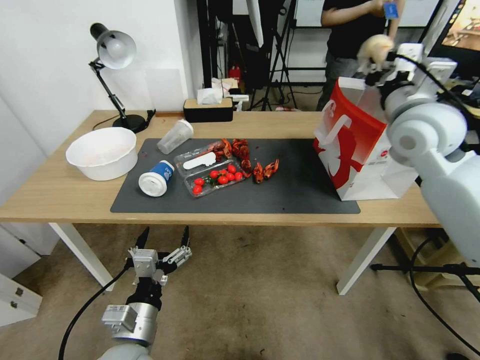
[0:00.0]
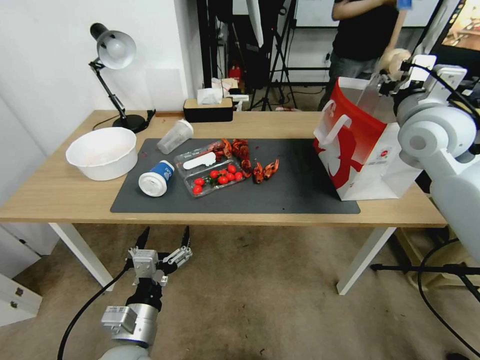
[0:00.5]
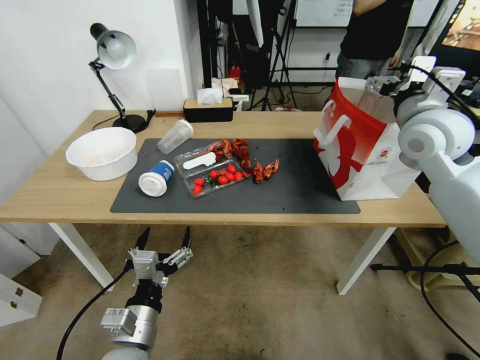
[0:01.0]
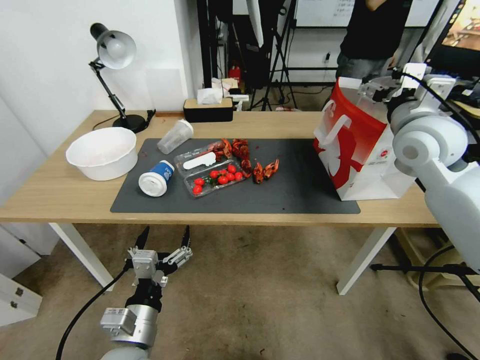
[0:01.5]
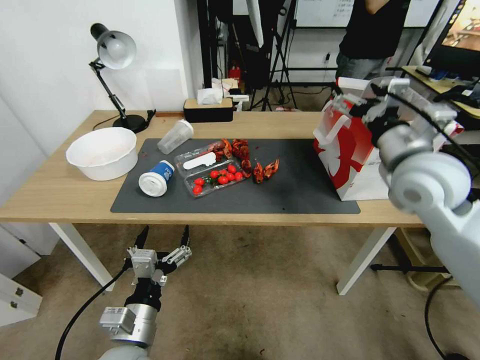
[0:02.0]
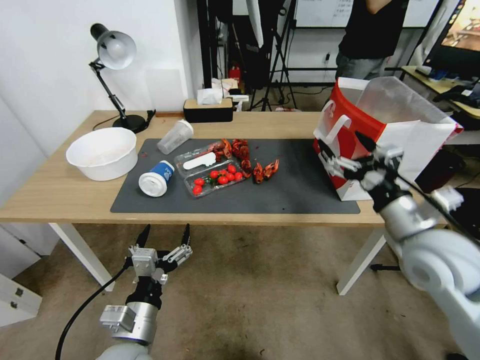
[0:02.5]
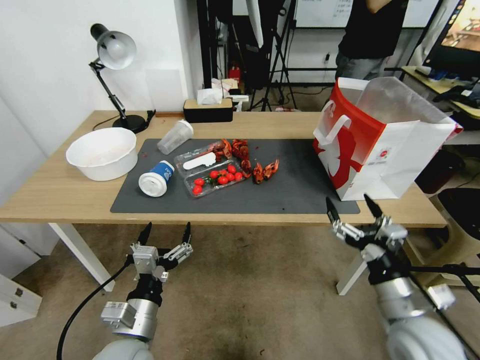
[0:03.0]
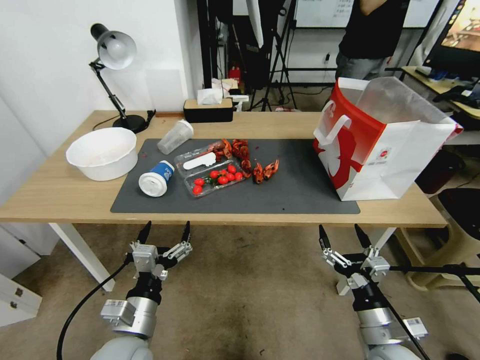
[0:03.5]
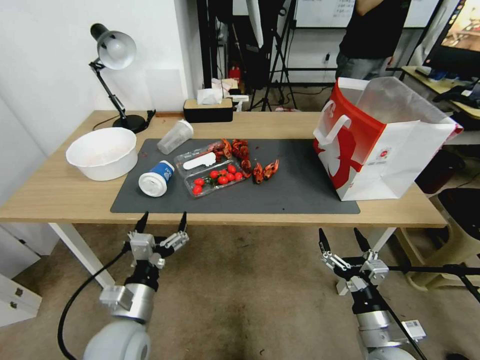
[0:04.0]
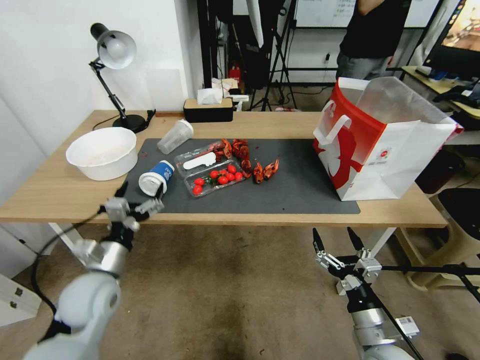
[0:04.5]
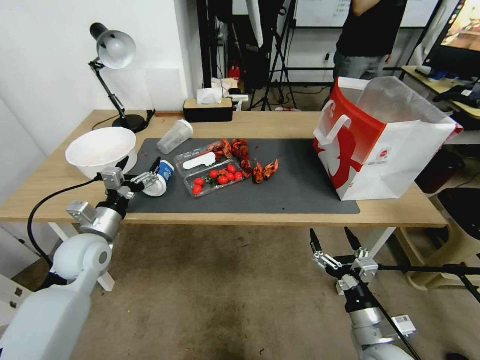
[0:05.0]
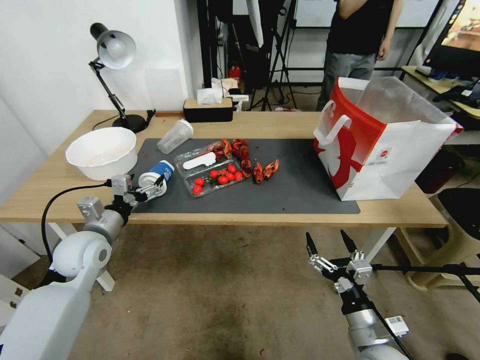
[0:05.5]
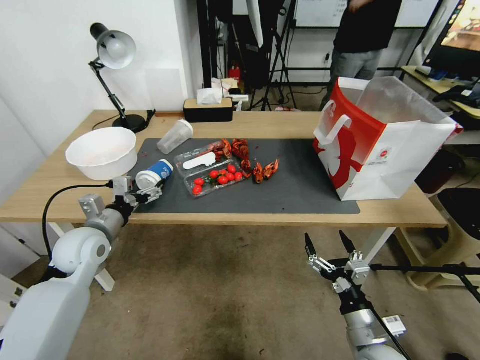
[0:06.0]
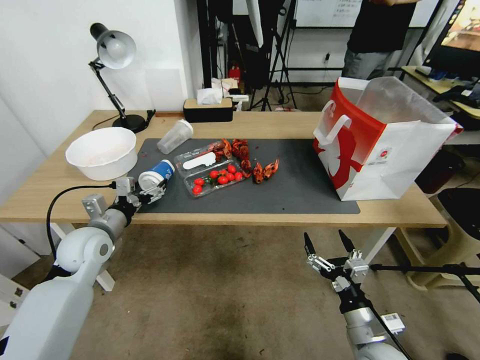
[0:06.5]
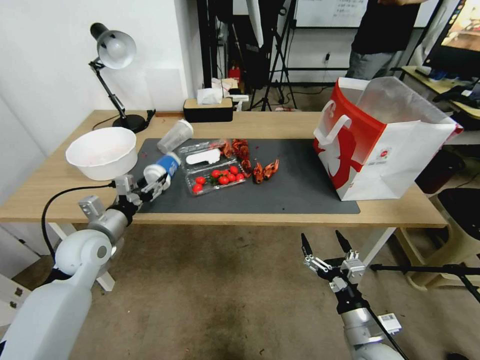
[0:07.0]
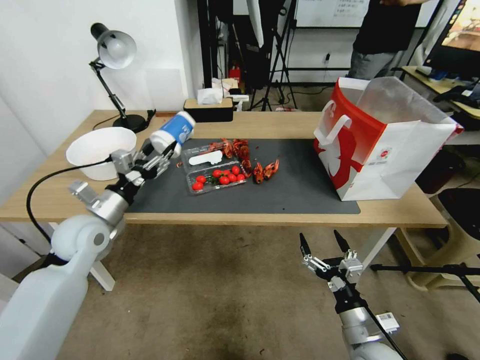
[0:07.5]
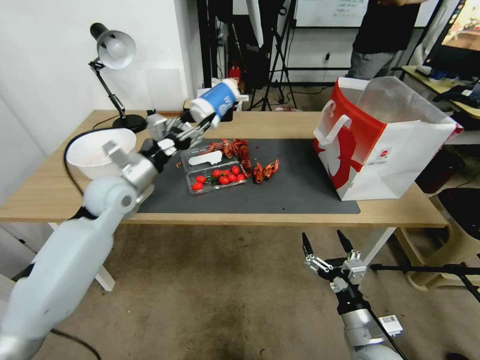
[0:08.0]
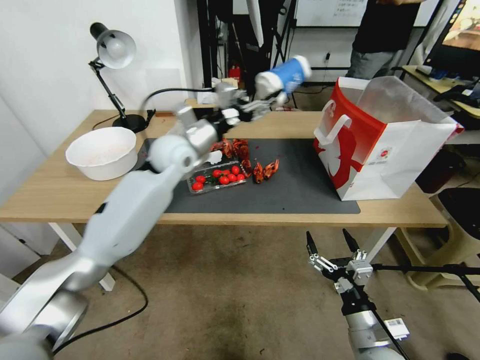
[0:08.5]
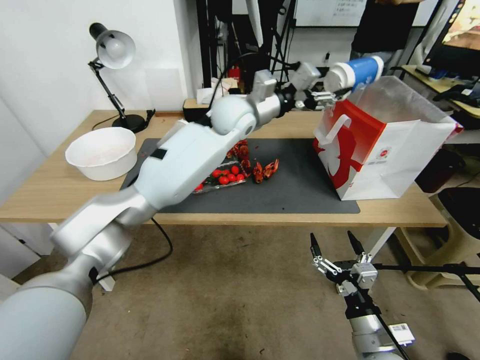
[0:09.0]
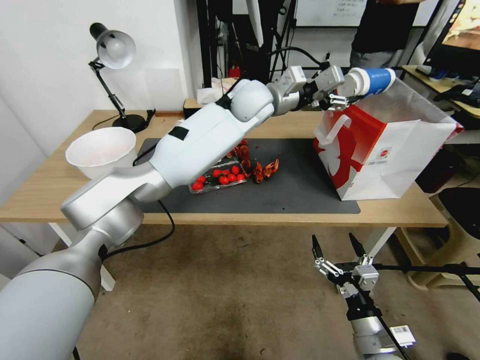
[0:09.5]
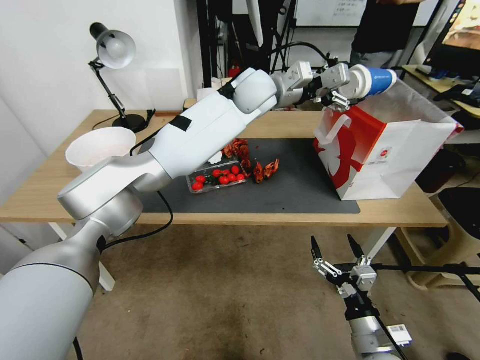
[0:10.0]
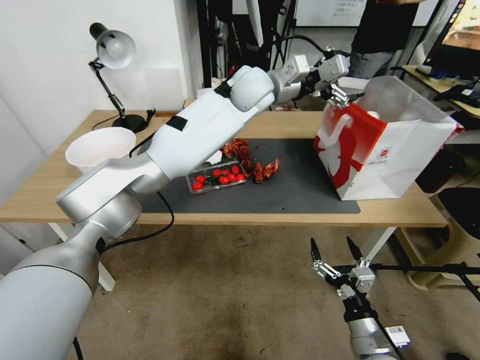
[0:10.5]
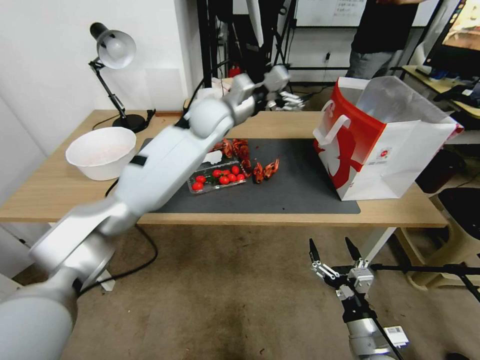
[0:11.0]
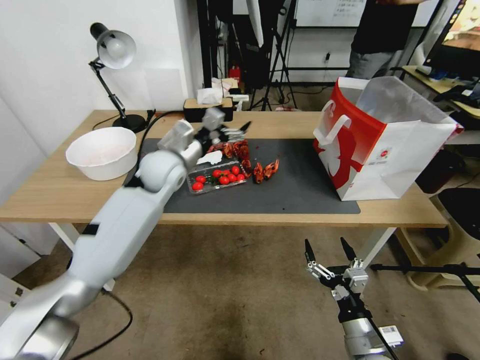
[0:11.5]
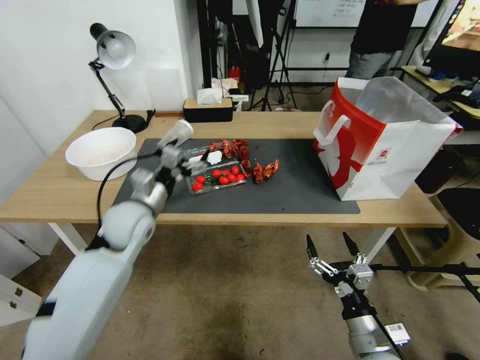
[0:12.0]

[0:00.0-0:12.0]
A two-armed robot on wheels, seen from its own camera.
0.0 to 2.0 s: The right gripper is displaced backward by approximately 5 cm, and opens.
2.0 to 4.0 s: The right gripper moves downward and backward, some 35 cm.
4.0 to 6.0 s: The left gripper is displaced forward and to the left by approximately 20 cm.
6.0 to 8.0 s: The left gripper goes approximately 15 cm upward, forward and to the right, and closes its fingers.
8.0 to 10.0 s: The left gripper goes some 35 cm to the right, forward and upward, and opens.
10.0 to 12.0 s: The left gripper shifts some 40 cm to the left, downward and backward.

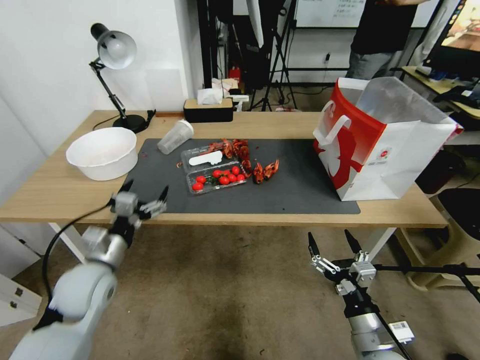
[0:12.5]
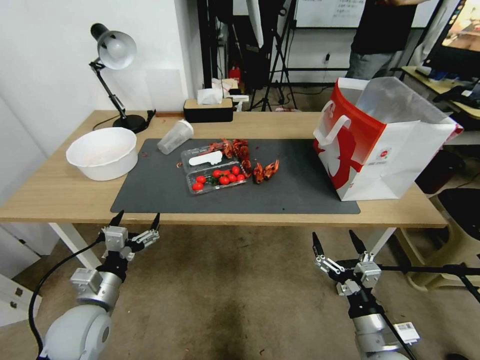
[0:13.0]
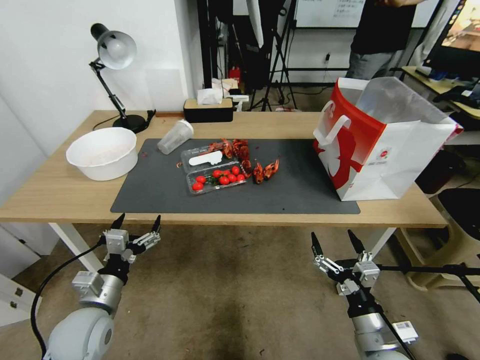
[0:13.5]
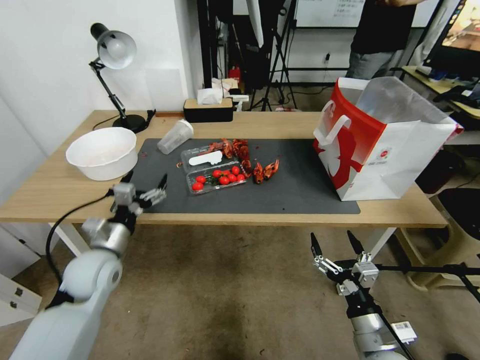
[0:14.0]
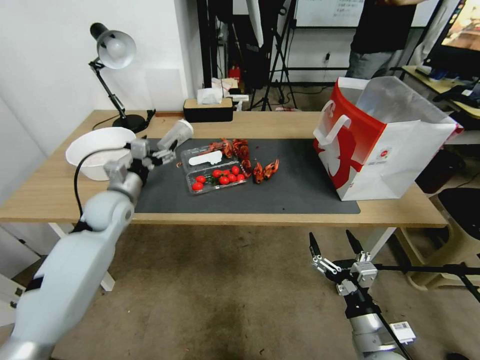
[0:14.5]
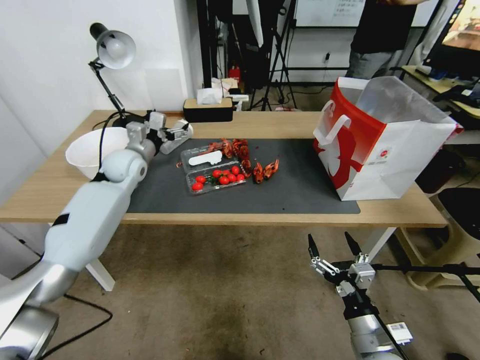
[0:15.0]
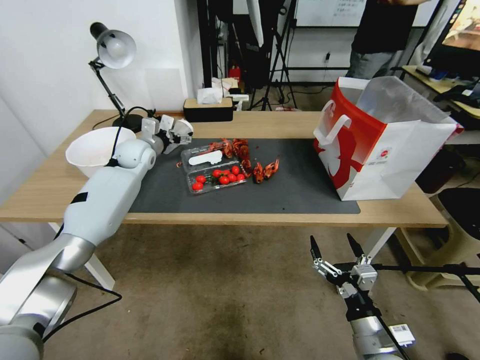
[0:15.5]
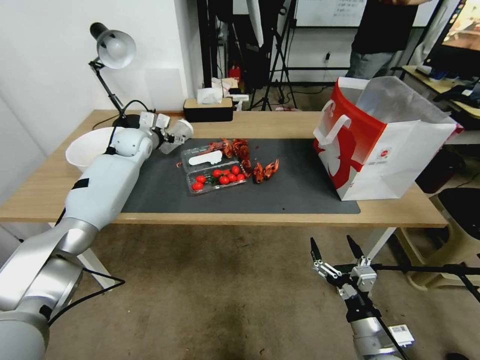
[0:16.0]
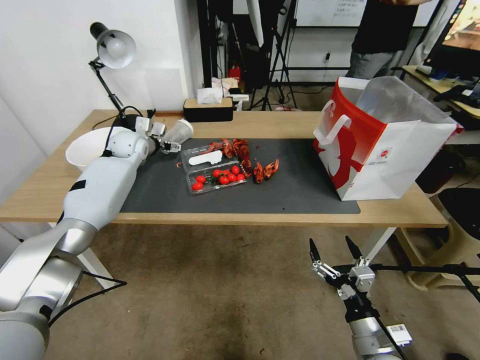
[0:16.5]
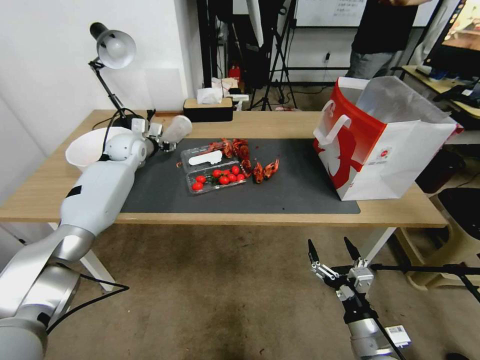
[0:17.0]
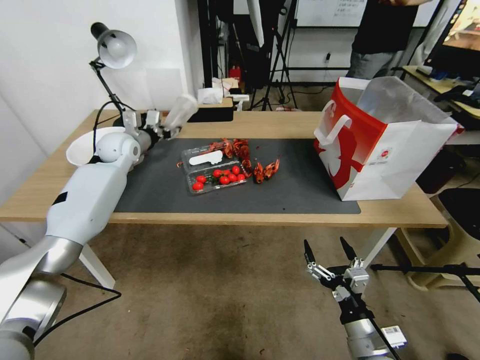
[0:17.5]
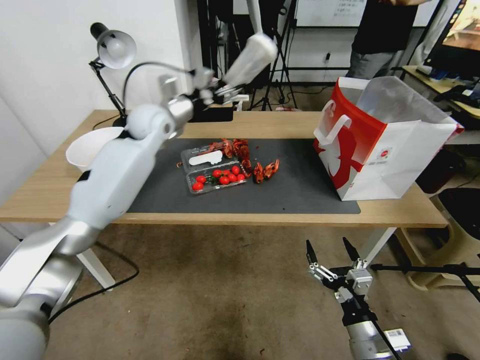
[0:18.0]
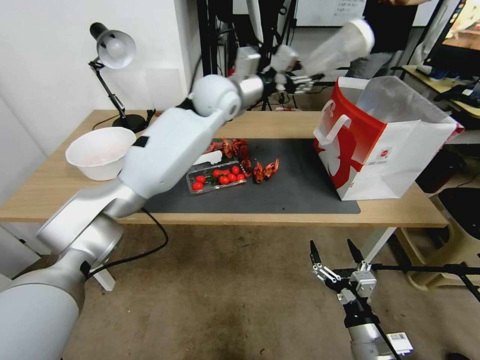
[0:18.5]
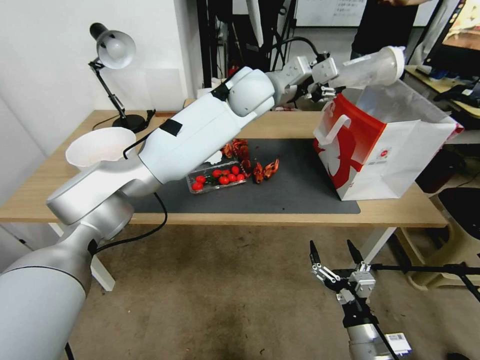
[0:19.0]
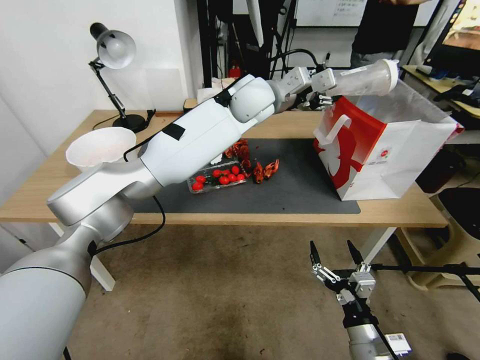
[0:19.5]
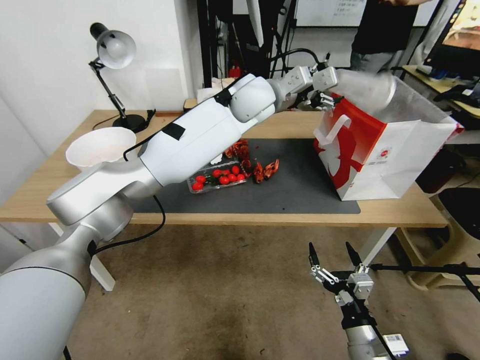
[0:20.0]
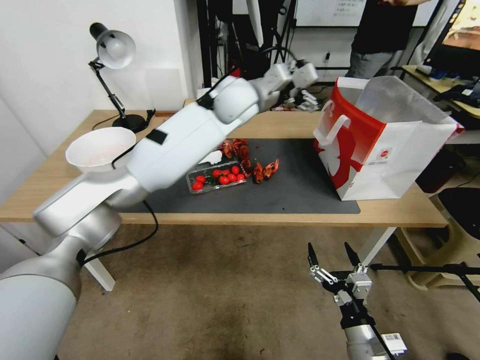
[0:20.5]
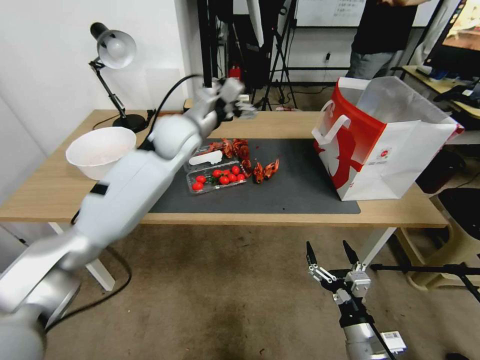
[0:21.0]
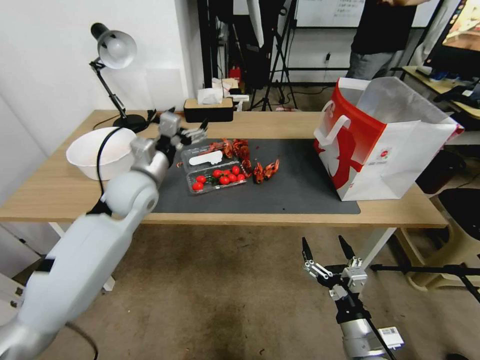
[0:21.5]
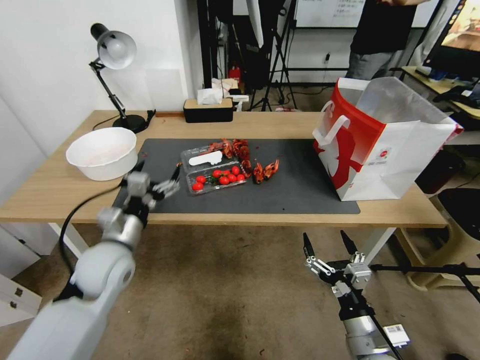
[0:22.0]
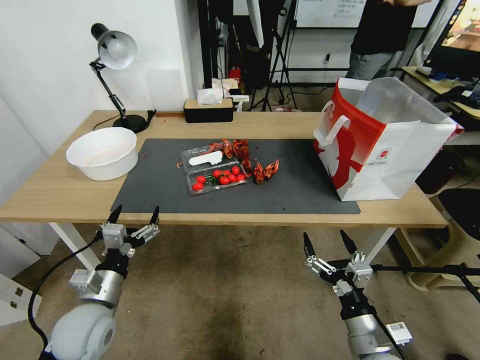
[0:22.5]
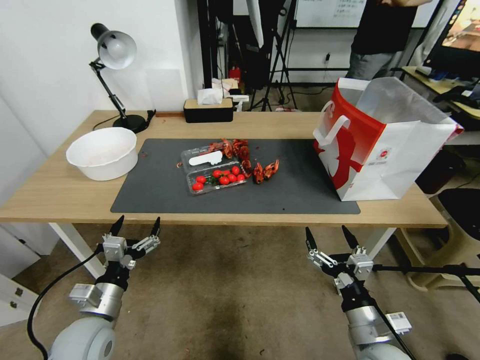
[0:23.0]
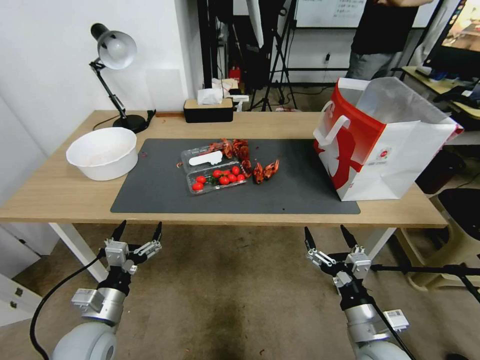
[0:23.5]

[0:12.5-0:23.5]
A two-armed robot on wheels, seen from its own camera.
12.5 to 14.5 s: The left gripper moves forward, roughly 10 cm.
14.5 to 16.0 s: The left gripper heads forward, covering roughly 25 cm.
16.0 to 18.0 s: The left gripper travels to the right and upward by about 15 cm, and closes up.
18.0 to 20.0 s: The left gripper shifts approximately 20 cm to the right, and opens its fingers.
20.0 to 21.5 s: The left gripper goes some 30 cm to the left, downward and backward, and opens up.
21.5 to 23.5 s: The left gripper shifts some 30 cm backward and downward.

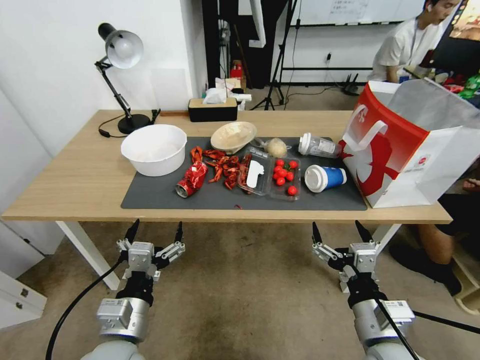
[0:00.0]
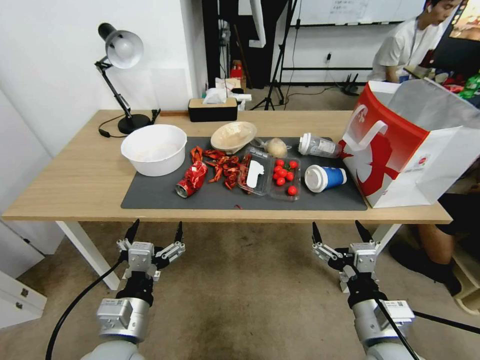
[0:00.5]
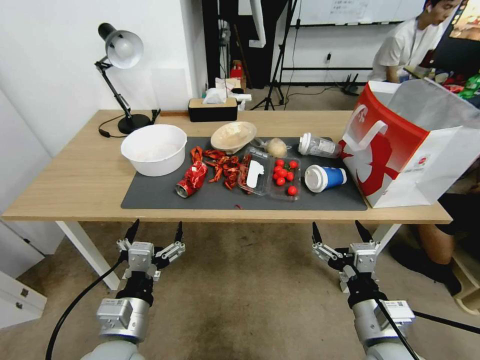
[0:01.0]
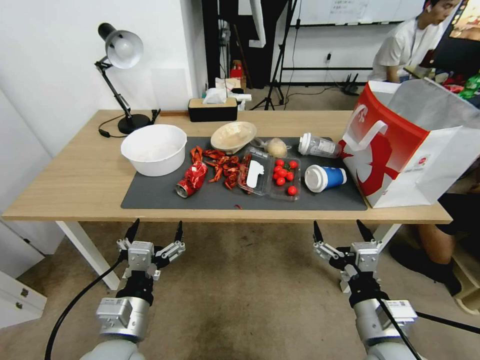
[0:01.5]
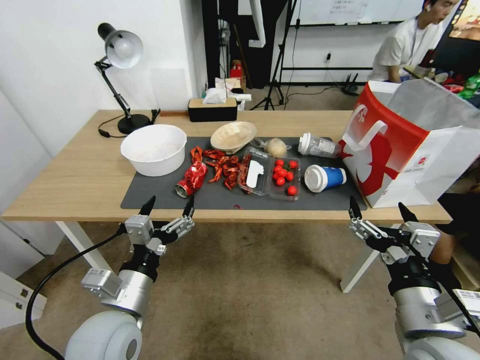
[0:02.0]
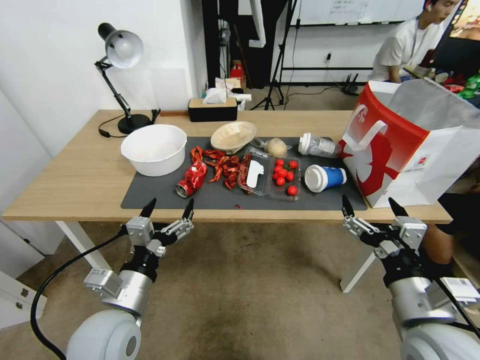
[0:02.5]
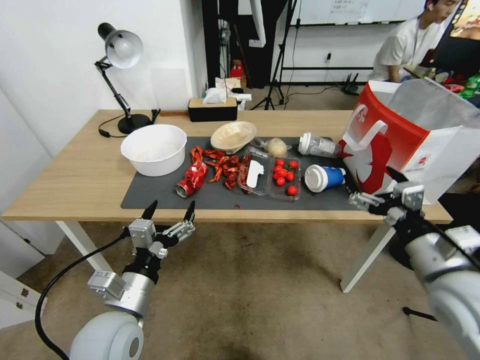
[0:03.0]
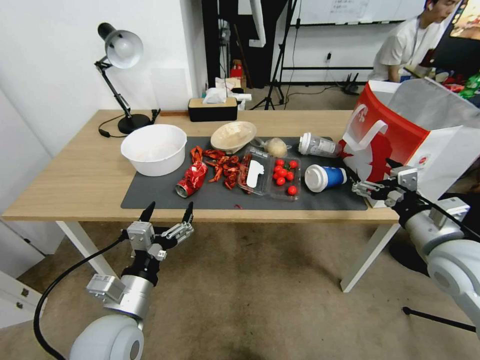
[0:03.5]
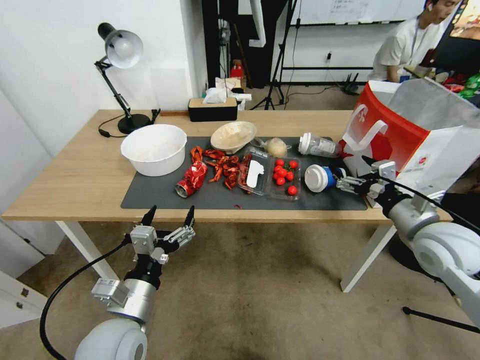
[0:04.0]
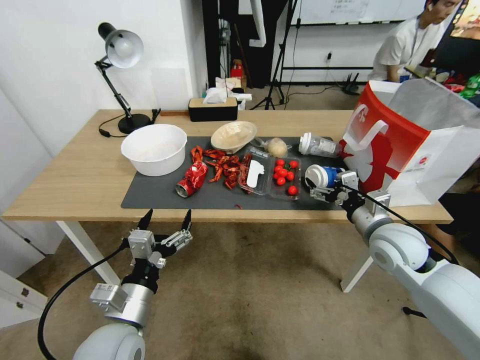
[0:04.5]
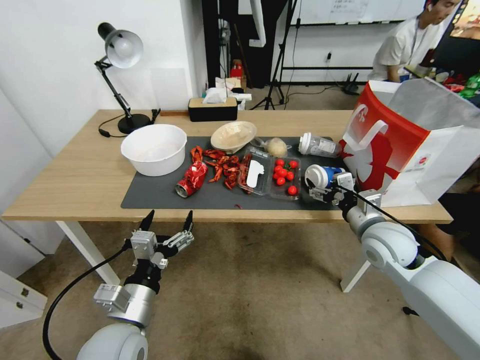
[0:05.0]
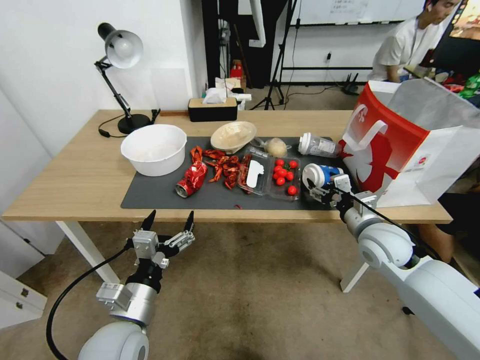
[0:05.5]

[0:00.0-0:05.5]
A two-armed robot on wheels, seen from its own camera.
2.0 to 3.5 s: The right gripper heads forward and to the right, covering some 20 cm.
3.5 to 5.5 s: The right gripper is displaced downward, forward and to the left by approximately 15 cm.
